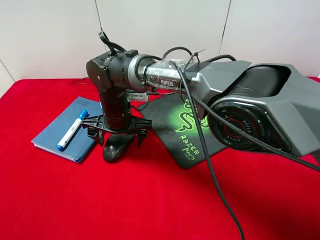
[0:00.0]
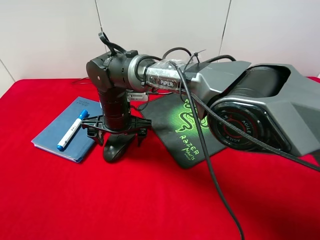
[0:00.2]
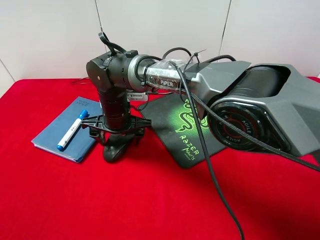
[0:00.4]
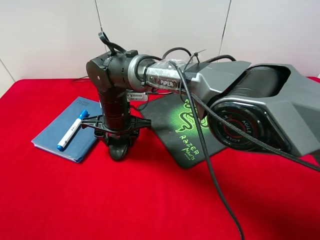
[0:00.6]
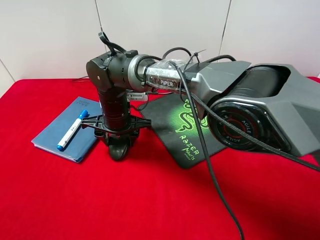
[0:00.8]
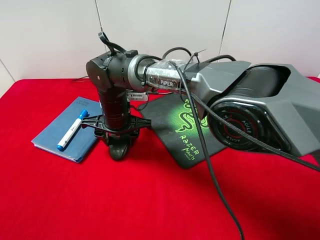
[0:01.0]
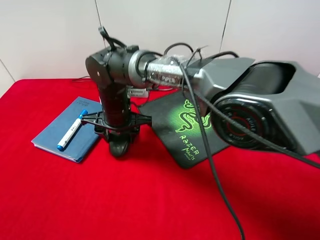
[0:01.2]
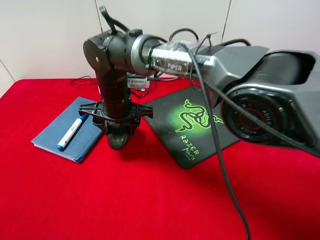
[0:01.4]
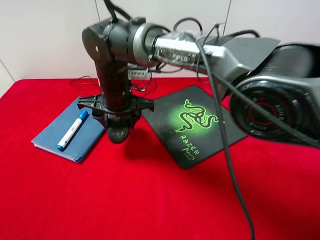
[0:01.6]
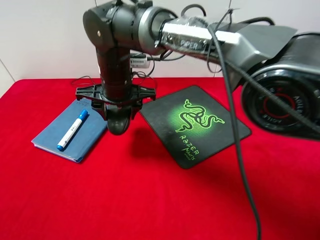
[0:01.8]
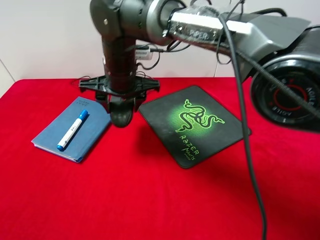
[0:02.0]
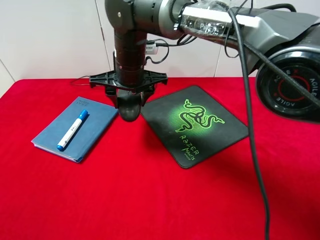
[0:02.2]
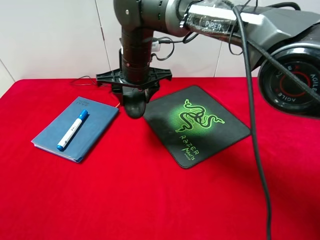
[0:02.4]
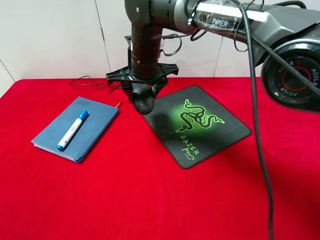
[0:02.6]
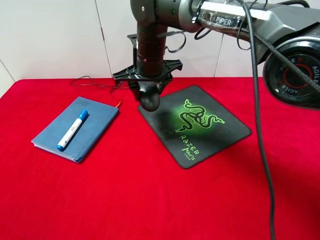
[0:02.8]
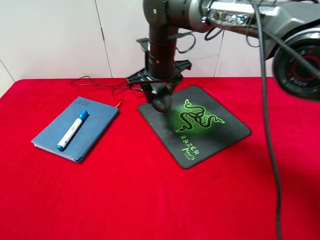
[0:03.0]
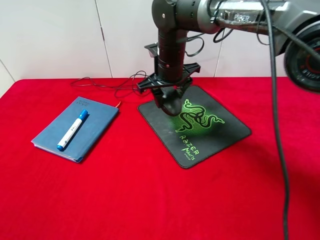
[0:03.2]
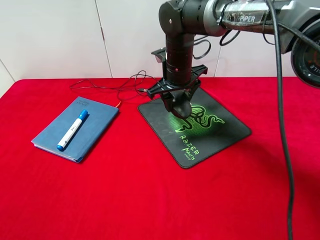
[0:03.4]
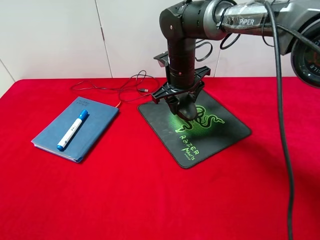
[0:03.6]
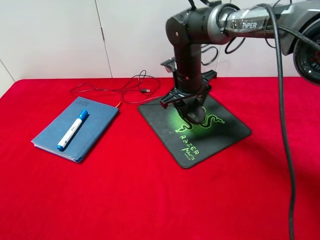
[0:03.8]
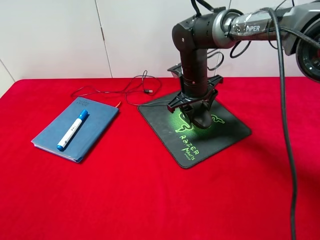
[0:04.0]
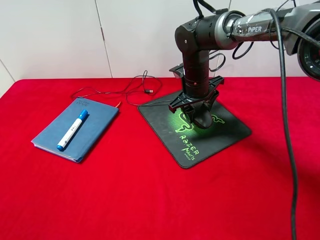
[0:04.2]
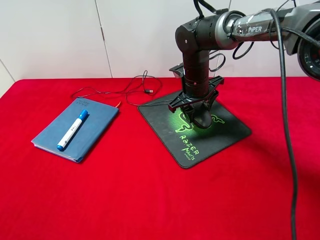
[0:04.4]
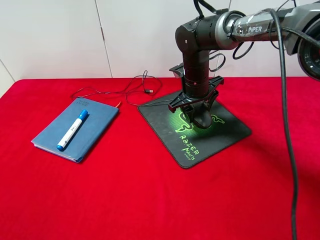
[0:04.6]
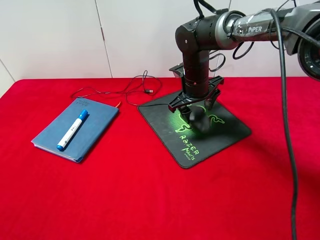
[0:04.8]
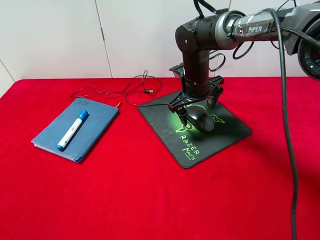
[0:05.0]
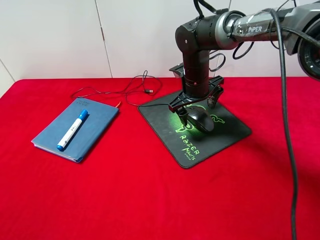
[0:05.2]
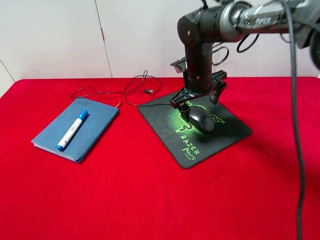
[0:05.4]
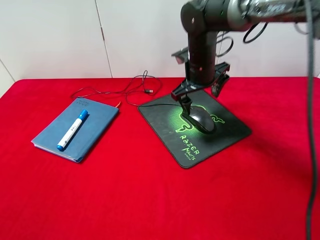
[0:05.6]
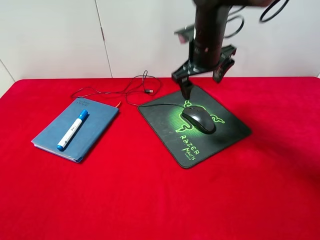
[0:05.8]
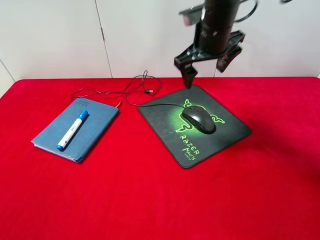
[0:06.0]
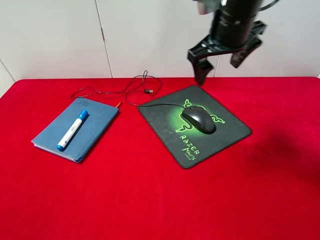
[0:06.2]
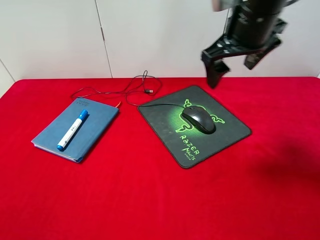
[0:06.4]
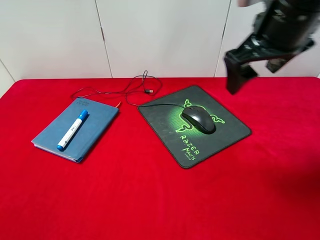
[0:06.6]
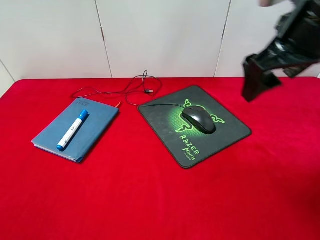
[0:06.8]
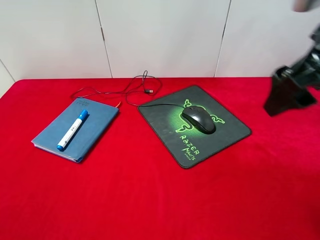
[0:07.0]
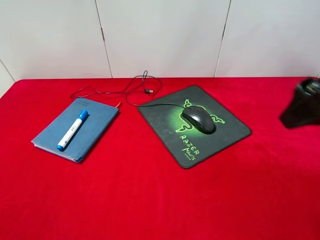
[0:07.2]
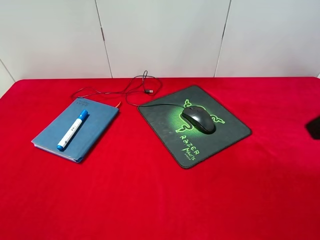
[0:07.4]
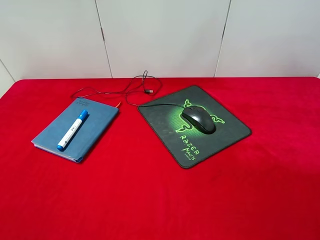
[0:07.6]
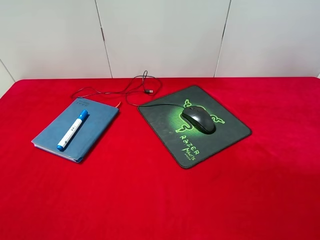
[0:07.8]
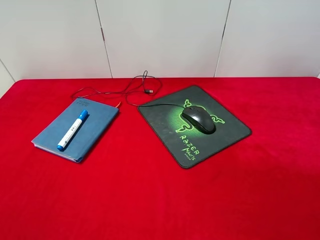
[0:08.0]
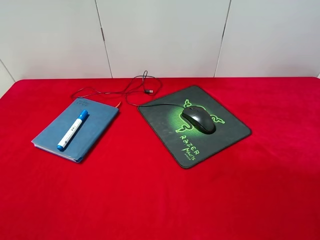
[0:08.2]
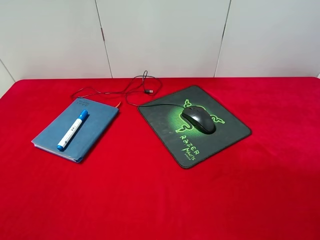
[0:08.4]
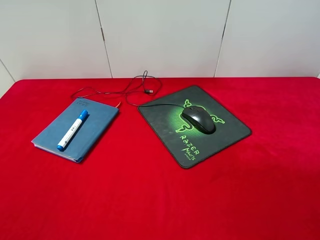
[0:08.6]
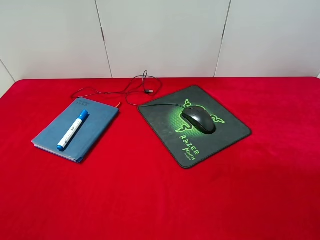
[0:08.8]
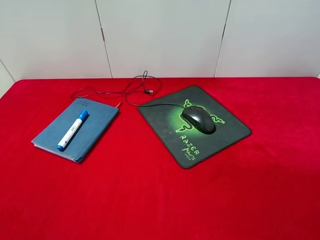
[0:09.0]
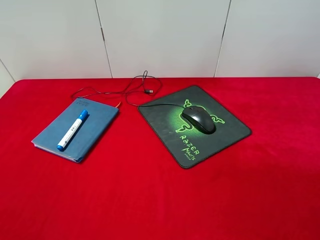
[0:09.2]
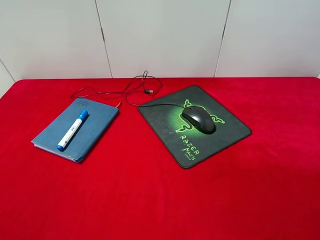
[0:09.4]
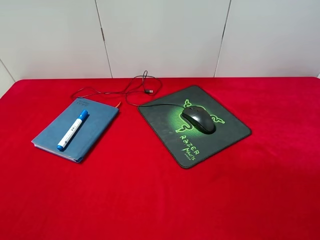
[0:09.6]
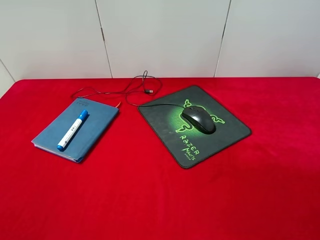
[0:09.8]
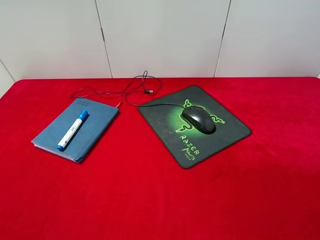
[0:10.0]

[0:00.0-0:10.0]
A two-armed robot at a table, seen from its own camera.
Step, 0:01.4 to 0:05.4: Place the mouse on the mouse pad with right gripper.
0:00.0 to 0:01.4: The right gripper closes up.
0:01.4 to 0:02.8: The right gripper shifts roughly 10 cm to the right, forward and upward.
0:02.8 to 0:04.2: The right gripper shifts about 10 cm to the right and downward.
0:04.2 to 0:05.8: The right gripper goes roughly 10 cm upward, and opens up.
0:05.8 to 0:07.2: The right gripper moves backward and to the right, roughly 25 cm.
0:07.2 to 0:08.6: The right gripper is displaced backward, to the right and downward by approximately 20 cm.
0:08.6 to 0:10.0: The two grippers keep their place.
